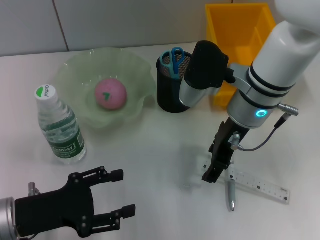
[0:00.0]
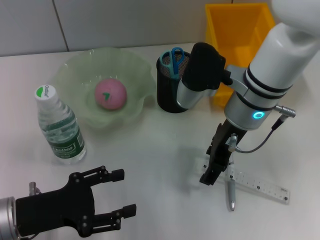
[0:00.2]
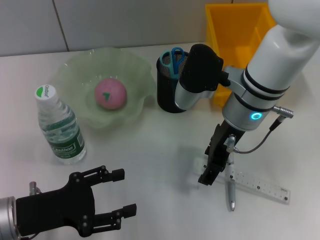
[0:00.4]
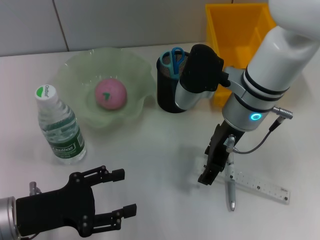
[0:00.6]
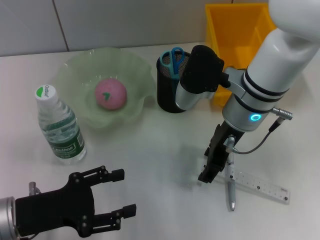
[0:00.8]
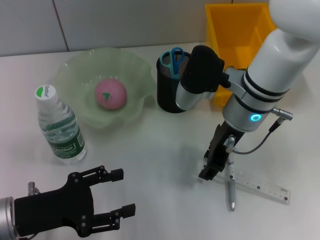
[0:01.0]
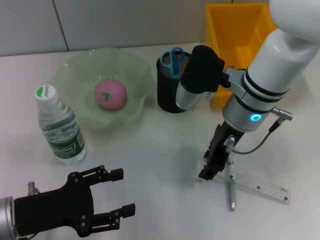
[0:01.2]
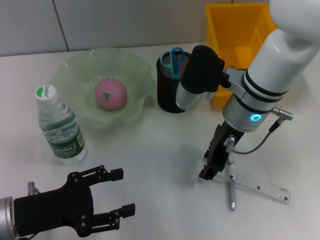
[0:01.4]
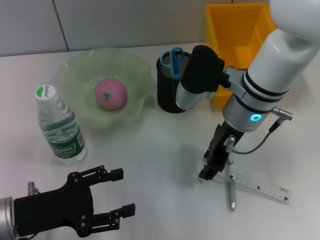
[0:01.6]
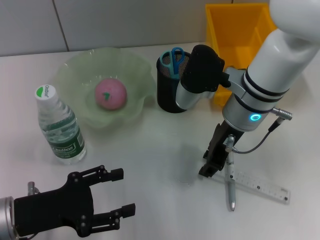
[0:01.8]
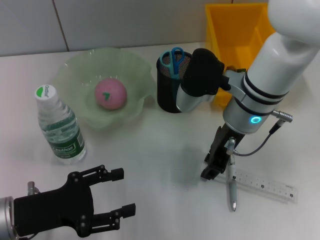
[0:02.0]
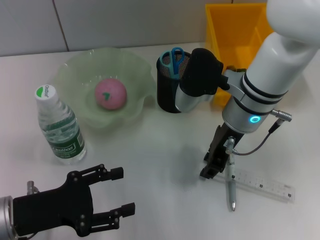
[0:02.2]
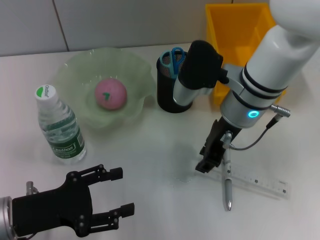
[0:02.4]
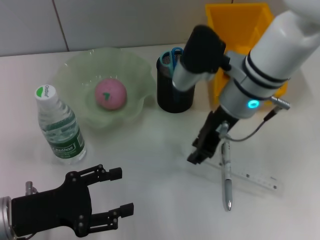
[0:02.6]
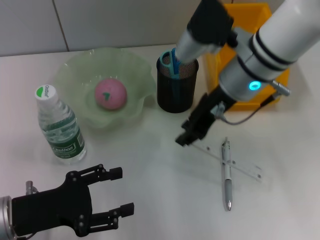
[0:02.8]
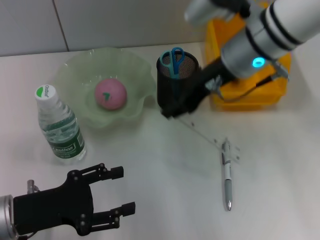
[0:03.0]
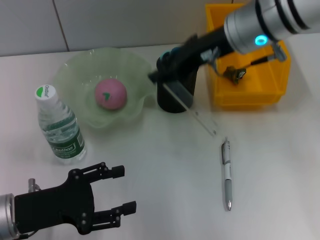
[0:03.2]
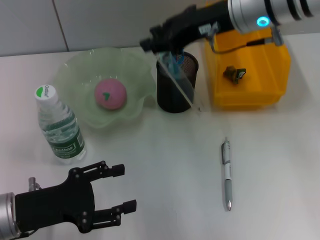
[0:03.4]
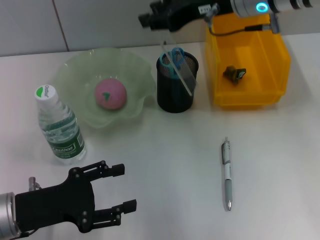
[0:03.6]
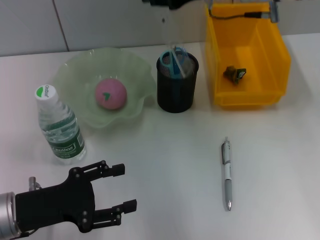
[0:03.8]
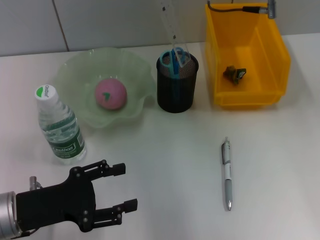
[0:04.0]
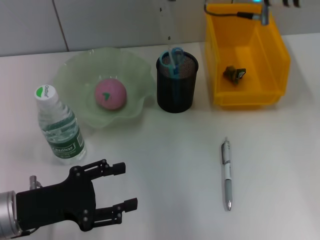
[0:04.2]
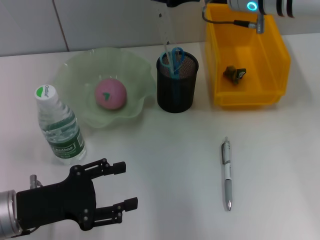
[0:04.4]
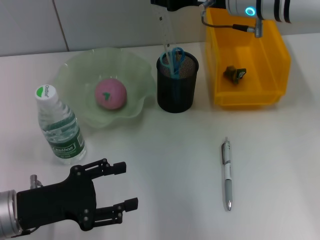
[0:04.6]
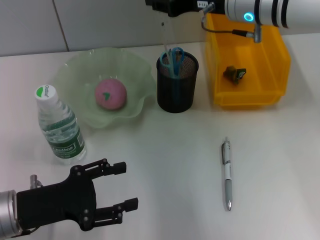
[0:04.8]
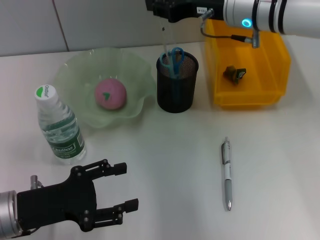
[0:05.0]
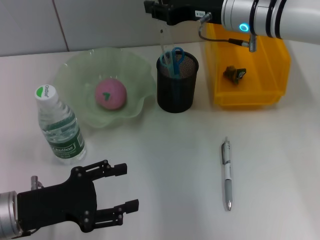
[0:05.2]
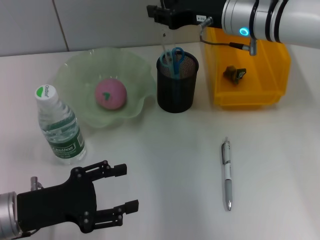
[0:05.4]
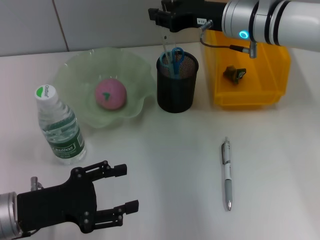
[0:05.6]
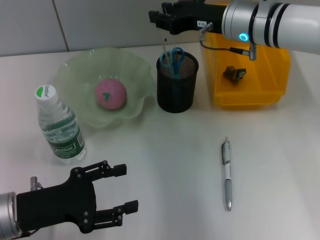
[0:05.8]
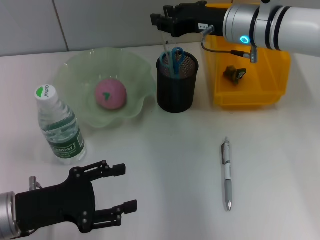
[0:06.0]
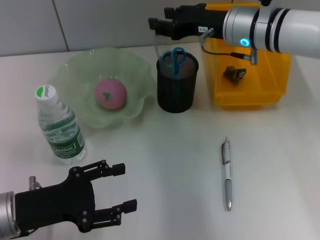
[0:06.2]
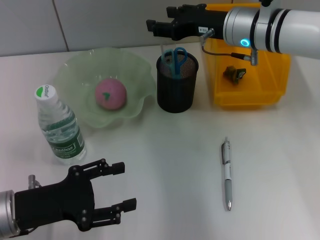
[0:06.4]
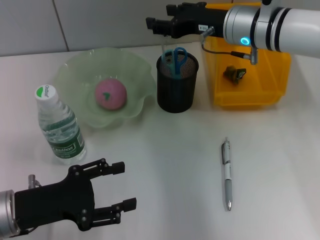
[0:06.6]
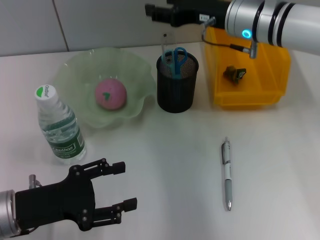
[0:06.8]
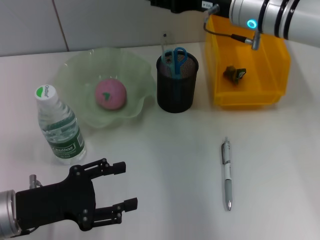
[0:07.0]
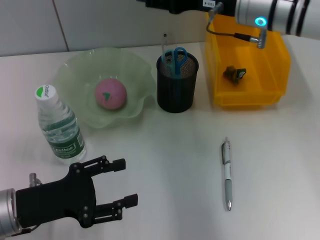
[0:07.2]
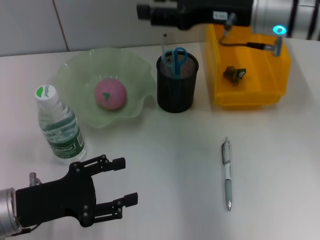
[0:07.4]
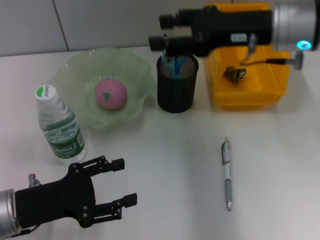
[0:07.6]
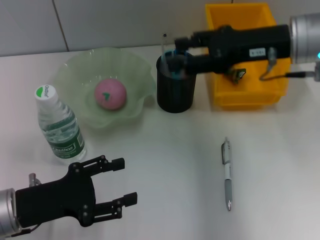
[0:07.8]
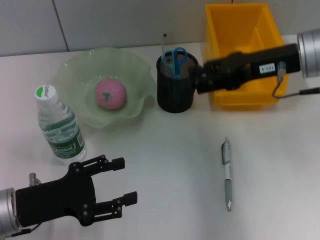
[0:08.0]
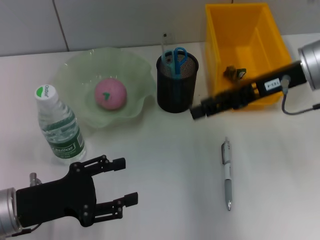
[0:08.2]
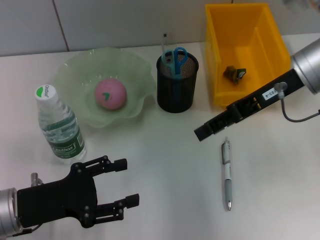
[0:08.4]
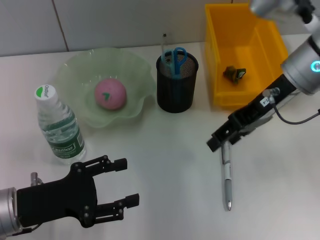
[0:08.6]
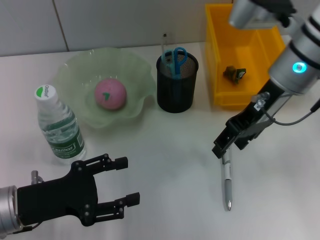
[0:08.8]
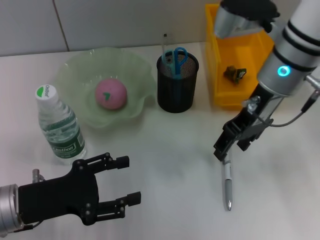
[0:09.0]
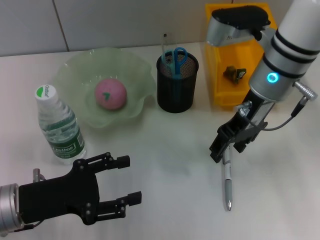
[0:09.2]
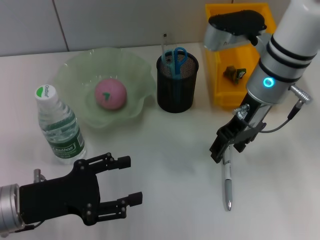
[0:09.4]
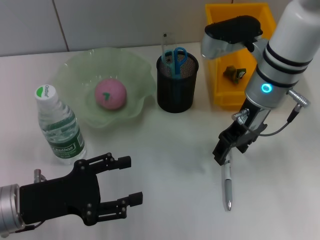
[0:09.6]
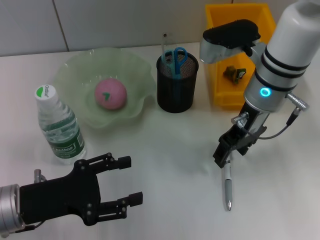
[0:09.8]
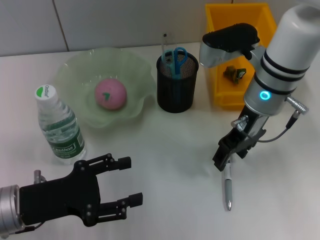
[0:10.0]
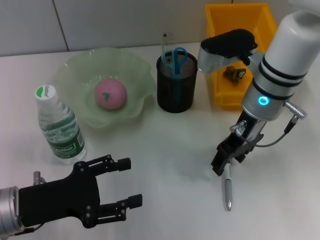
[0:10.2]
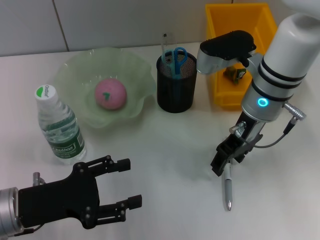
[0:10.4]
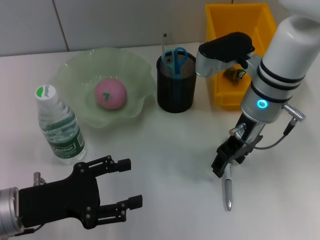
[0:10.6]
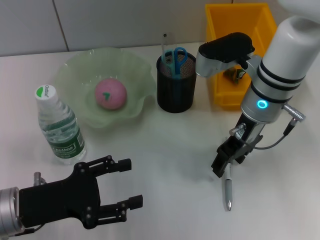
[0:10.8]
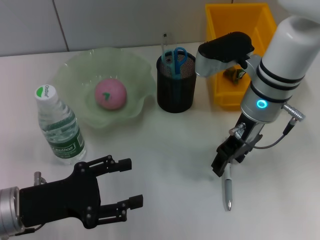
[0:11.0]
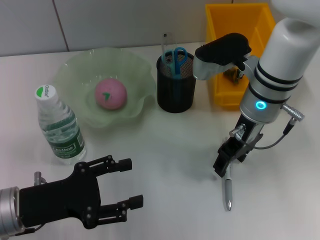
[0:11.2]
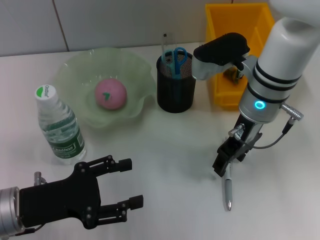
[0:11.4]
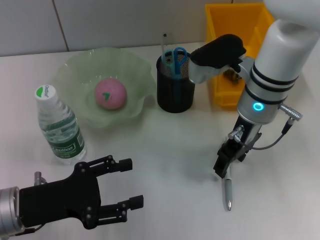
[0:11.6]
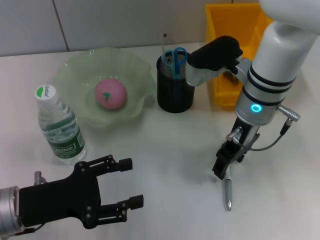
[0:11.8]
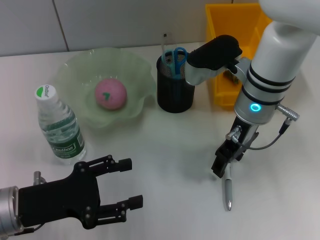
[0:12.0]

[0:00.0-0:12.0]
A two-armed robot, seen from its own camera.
Step, 0:00.0 to 0:02.0: Grab the ruler with the right hand.
Step, 0:02.2 to 0:06.4: Place the ruler into the pen holder with the right hand.
0:00.0 to 0:01.6: Both grippers stay about where they are.
0:01.6 to 0:03.0: The right gripper is displaced upward by some 5 cm.
0:03.0 to 0:04.4: The right gripper changes place by roughly 5 cm.
0:04.4 to 0:06.0: The right gripper travels downward by roughly 5 cm.
0:06.0 to 0:07.6: The right gripper goes about 5 cm backward.
0:09.0 to 0:10.4: The right gripper moves roughly 5 cm.
0:10.4 to 0:12.0: The grippers make only small movements.

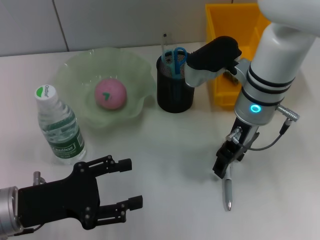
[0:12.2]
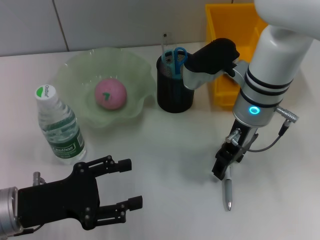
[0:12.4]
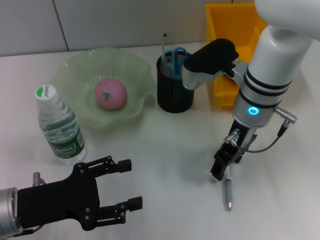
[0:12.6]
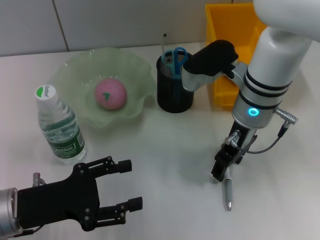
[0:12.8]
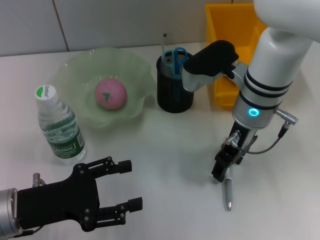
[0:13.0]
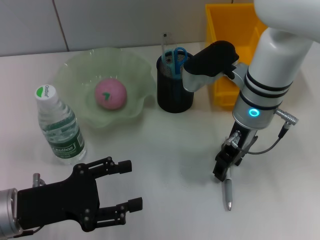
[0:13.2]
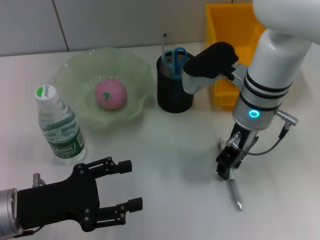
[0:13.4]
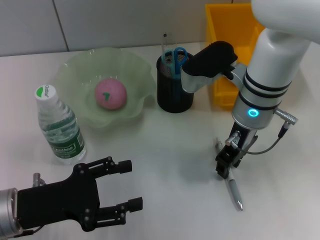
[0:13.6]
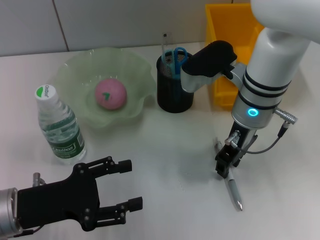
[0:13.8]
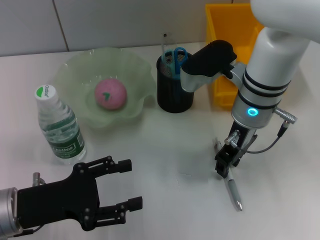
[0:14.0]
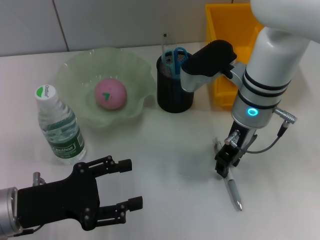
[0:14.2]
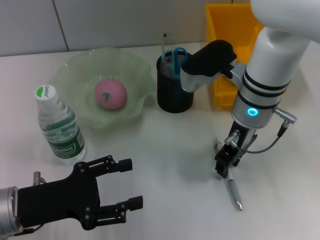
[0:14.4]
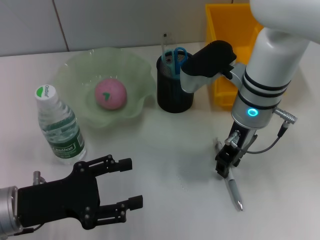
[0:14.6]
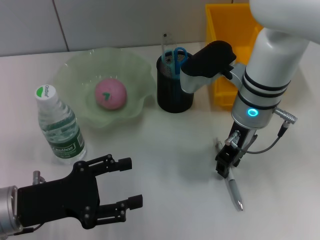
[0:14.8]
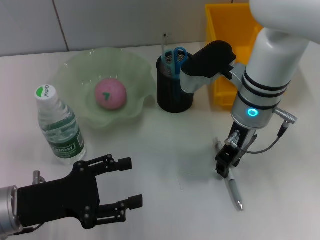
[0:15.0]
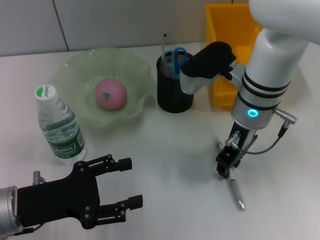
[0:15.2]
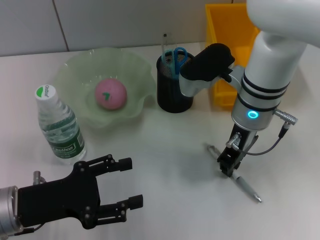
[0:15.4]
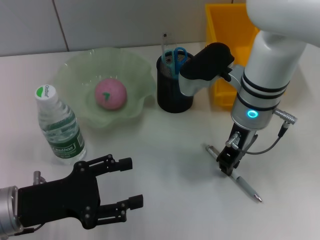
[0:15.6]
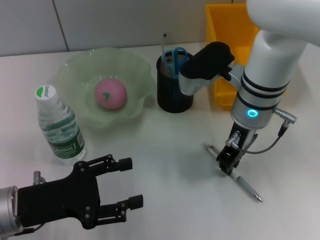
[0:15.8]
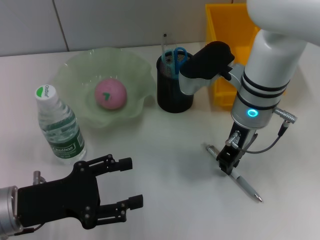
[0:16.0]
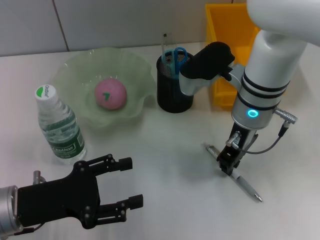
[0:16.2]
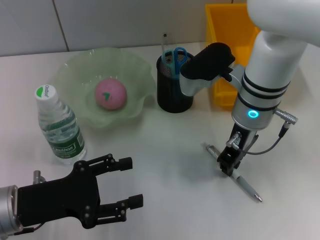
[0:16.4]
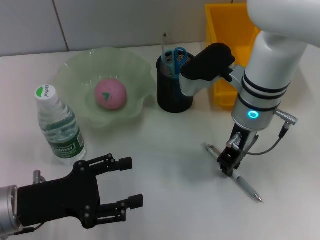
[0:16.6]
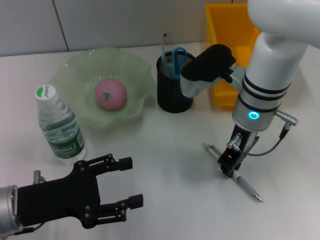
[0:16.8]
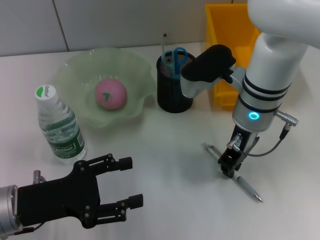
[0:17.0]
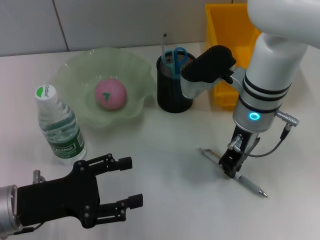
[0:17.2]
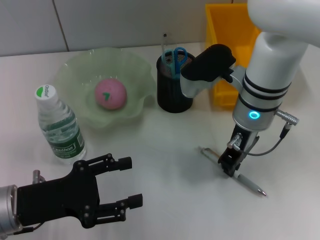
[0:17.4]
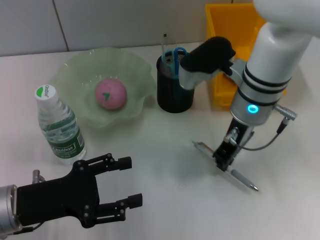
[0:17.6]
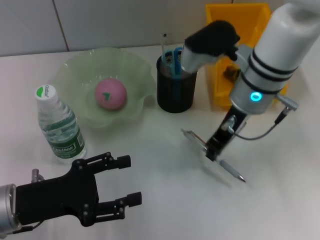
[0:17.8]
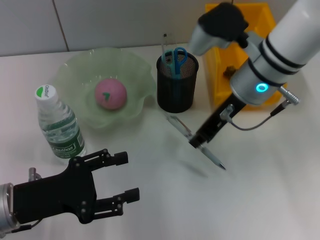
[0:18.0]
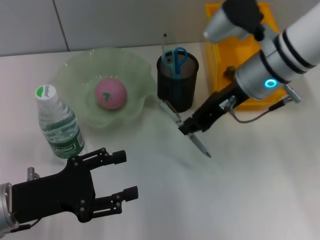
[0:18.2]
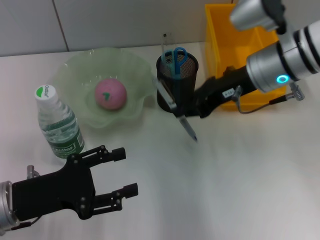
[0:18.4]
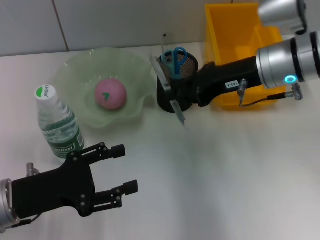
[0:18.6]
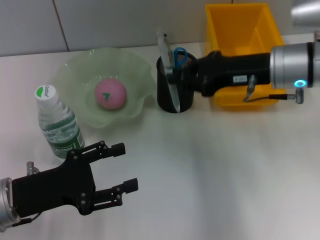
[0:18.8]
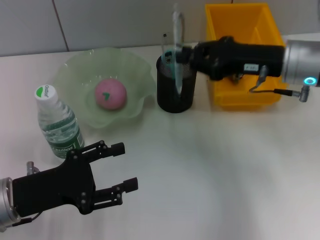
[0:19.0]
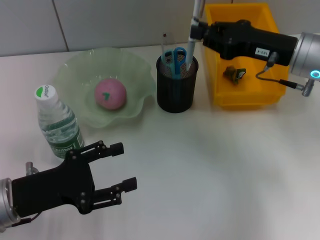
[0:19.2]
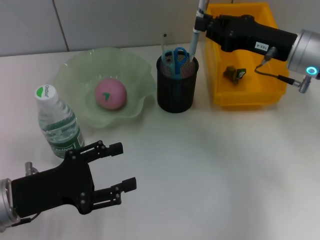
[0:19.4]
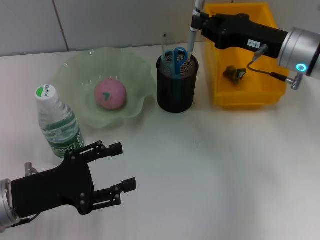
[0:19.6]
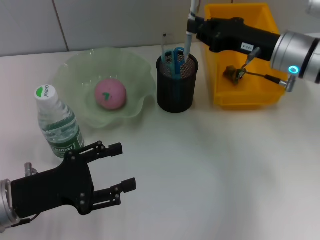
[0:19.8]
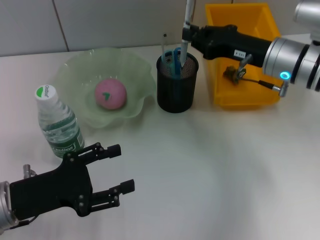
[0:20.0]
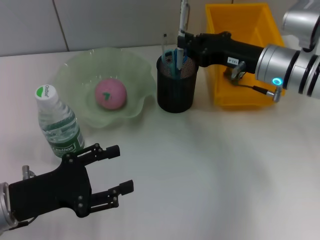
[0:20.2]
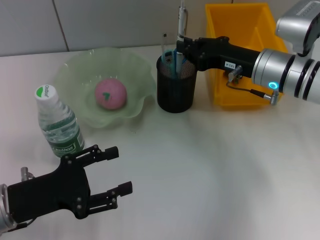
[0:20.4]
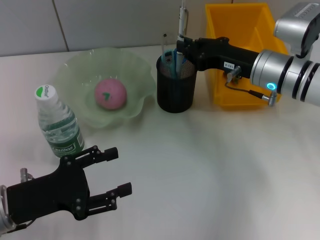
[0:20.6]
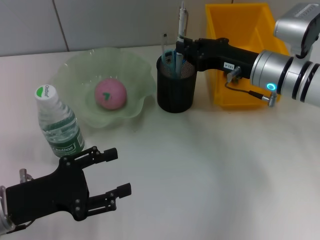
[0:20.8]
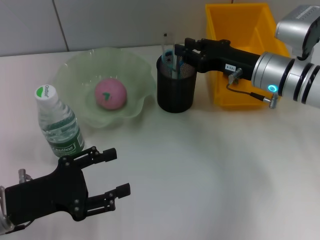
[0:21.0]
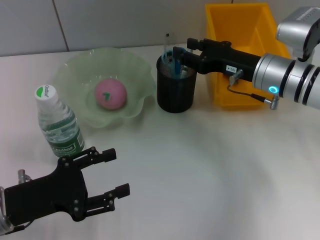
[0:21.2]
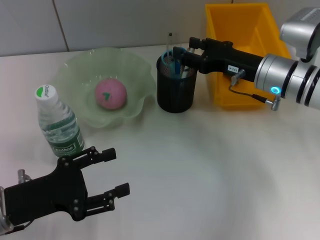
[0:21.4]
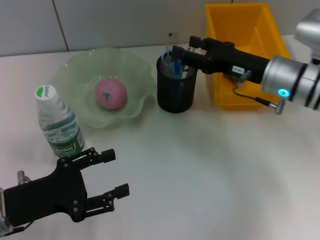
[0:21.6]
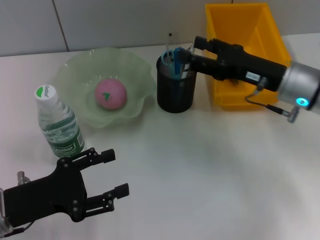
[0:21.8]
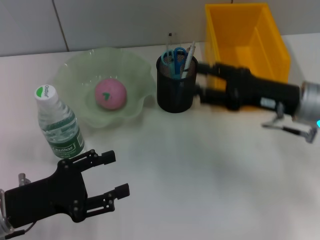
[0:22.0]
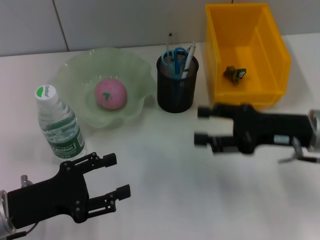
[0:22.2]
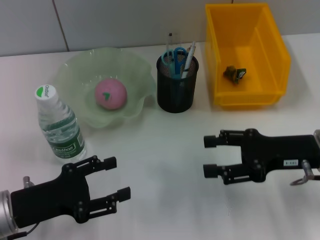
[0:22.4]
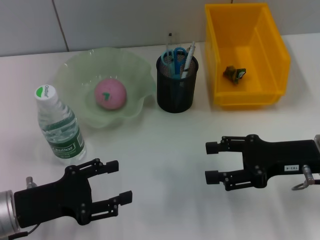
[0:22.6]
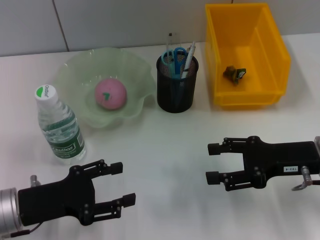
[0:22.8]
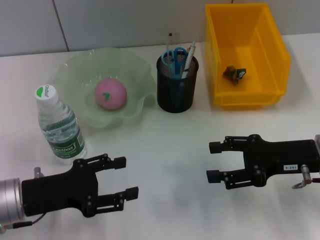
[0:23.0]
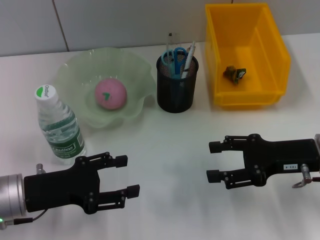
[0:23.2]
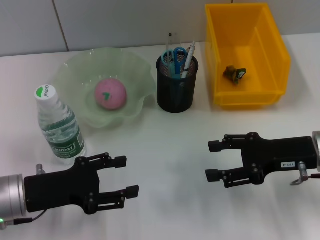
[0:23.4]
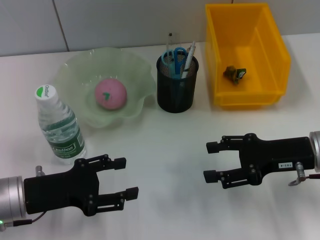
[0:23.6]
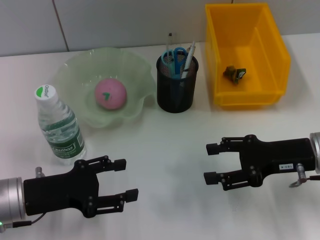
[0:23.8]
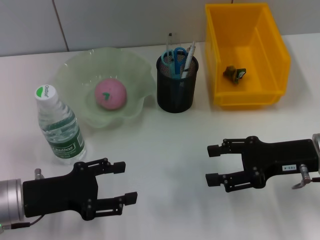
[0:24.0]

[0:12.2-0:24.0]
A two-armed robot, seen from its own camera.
Step, 0:12.2 to 0:17.0: Grab the gray spring-action pen with the right hand.
Step, 0:17.2 to 0:21.2: Place the gray spring-action pen into the pen holder with the right hand.
0:12.2 to 0:13.6: The right gripper closes its fingers.
0:13.6 to 0:16.6: Both grippers stay about where they are.
0:16.6 to 0:18.2: The right gripper shifts by approximately 5 cm.
0:18.2 to 0:19.6: The right gripper is displaced to the right by some 5 cm.
0:19.6 to 0:21.0: The grippers move only a little.
0:21.0 to 0:22.6: The right gripper goes roughly 15 cm backward and to the right, and opens up.
0:22.6 to 0:24.0: There are only small adjustments of the grippers.
